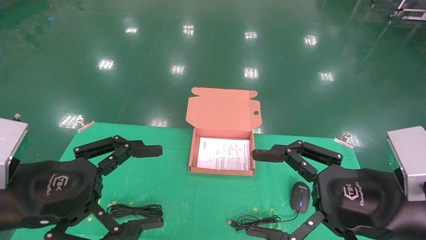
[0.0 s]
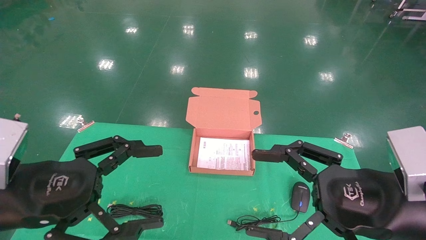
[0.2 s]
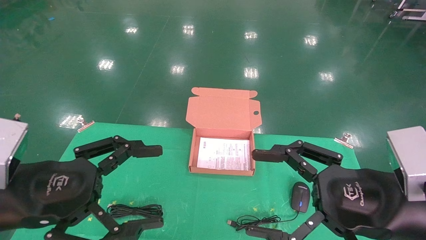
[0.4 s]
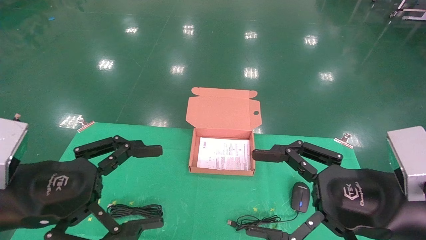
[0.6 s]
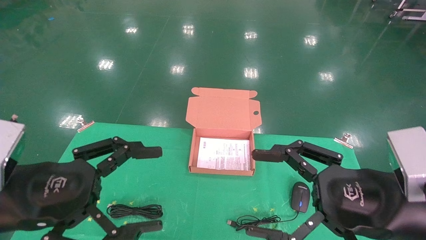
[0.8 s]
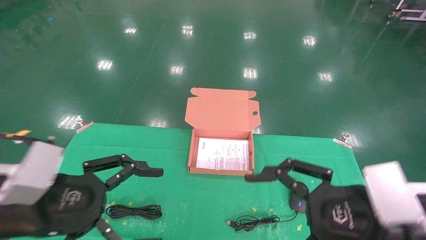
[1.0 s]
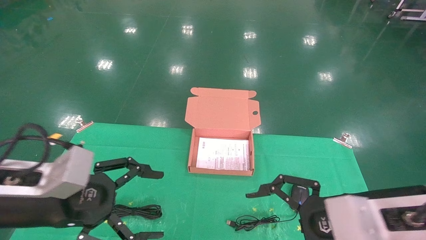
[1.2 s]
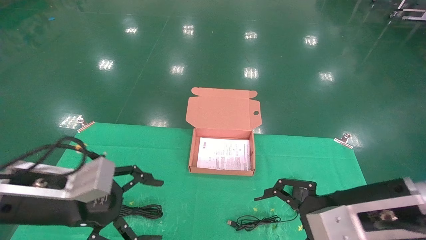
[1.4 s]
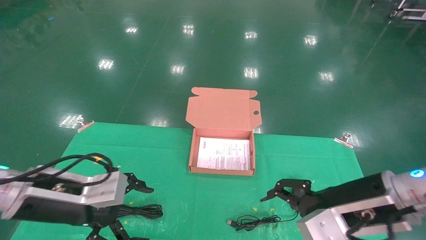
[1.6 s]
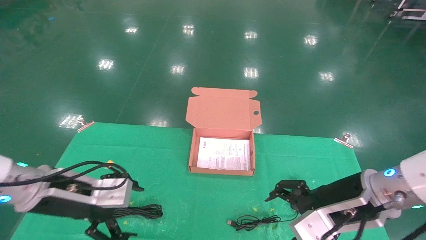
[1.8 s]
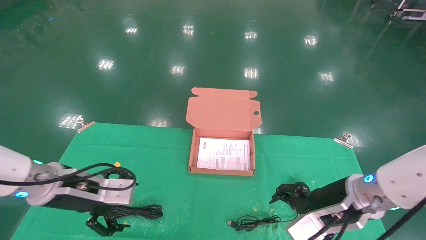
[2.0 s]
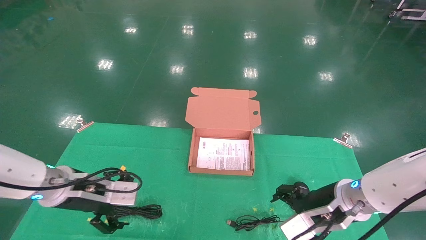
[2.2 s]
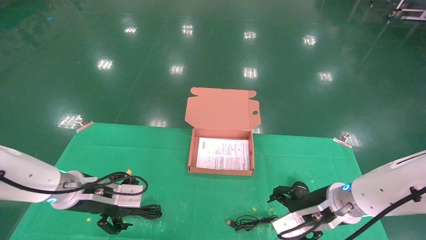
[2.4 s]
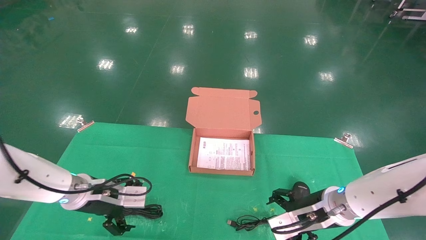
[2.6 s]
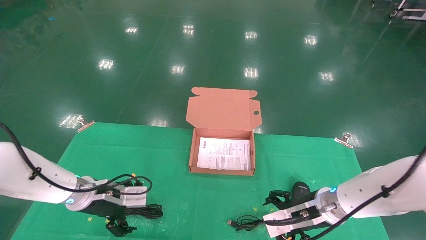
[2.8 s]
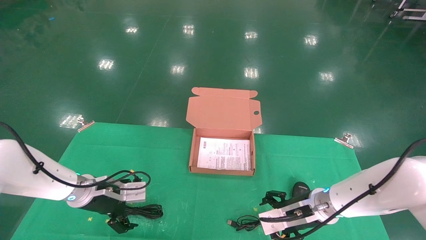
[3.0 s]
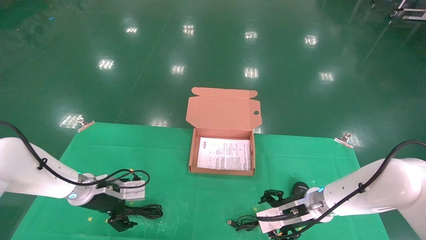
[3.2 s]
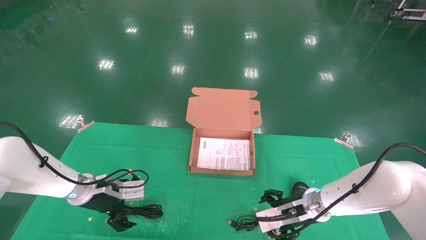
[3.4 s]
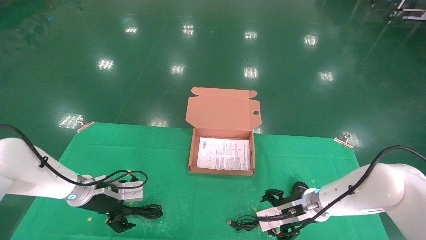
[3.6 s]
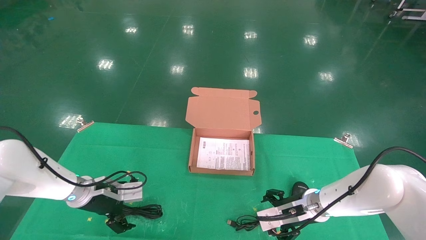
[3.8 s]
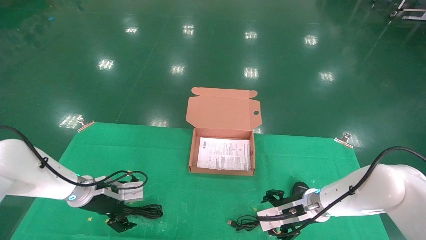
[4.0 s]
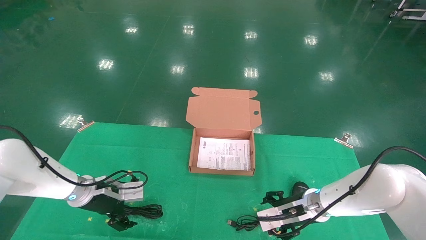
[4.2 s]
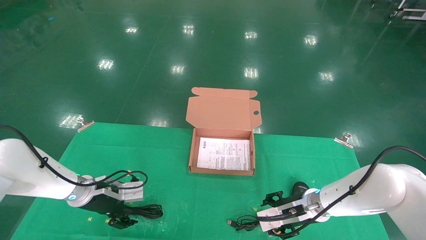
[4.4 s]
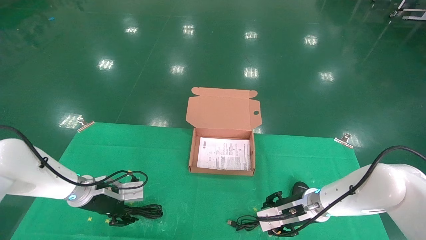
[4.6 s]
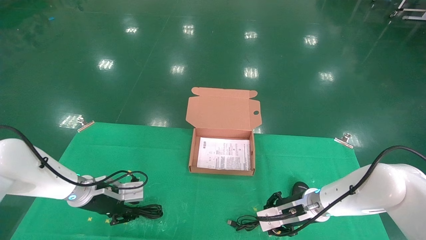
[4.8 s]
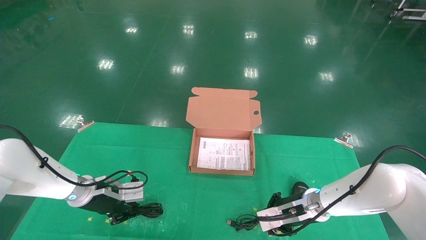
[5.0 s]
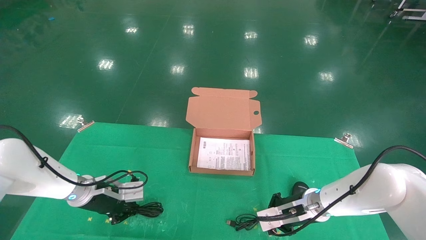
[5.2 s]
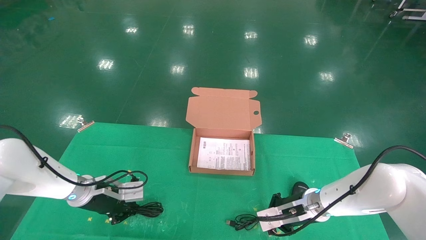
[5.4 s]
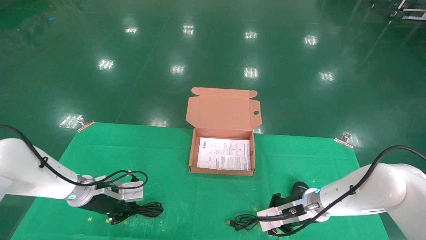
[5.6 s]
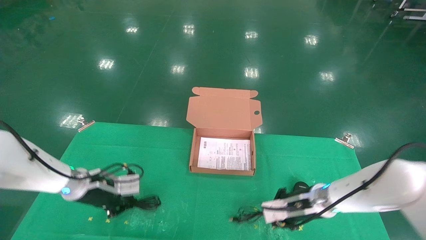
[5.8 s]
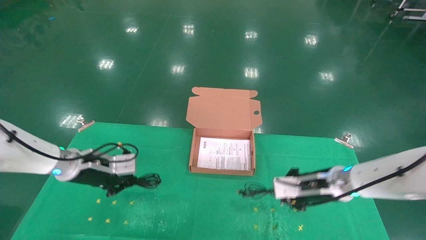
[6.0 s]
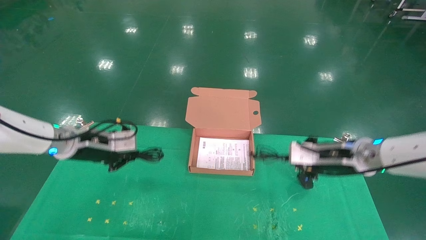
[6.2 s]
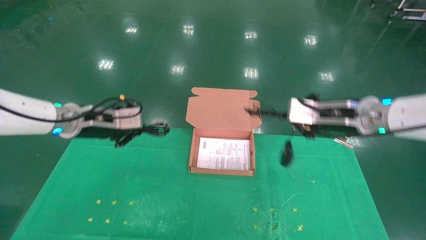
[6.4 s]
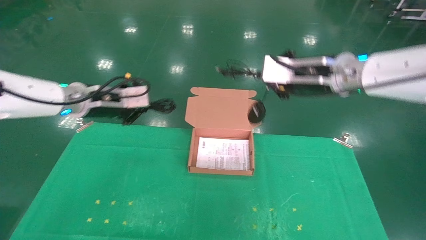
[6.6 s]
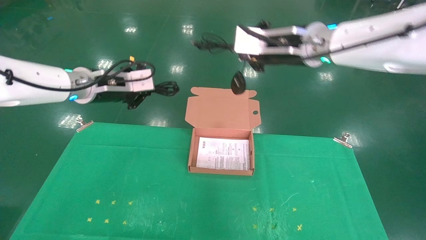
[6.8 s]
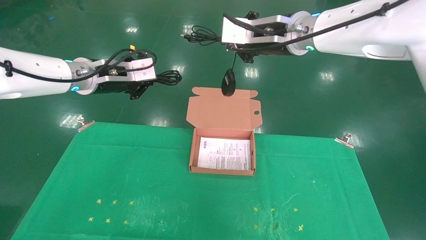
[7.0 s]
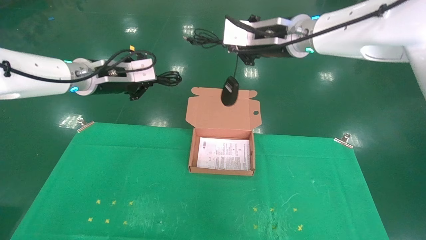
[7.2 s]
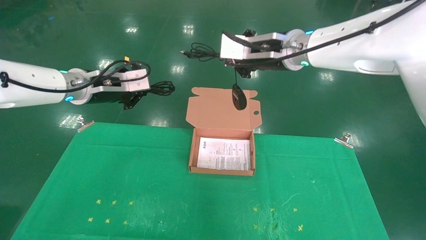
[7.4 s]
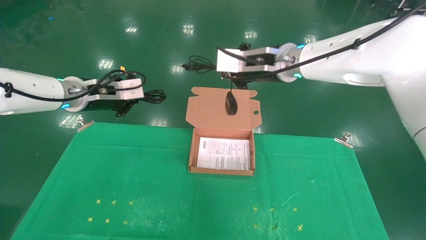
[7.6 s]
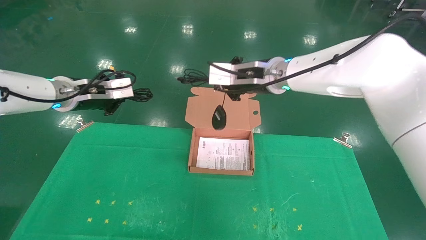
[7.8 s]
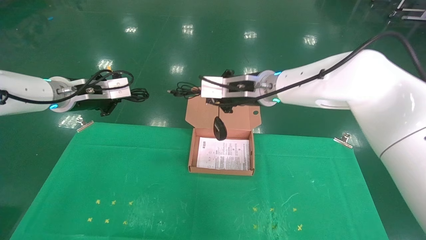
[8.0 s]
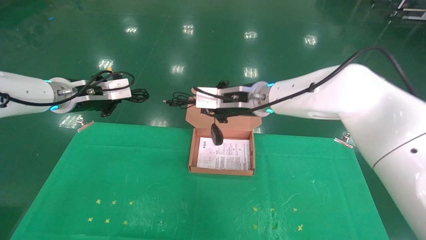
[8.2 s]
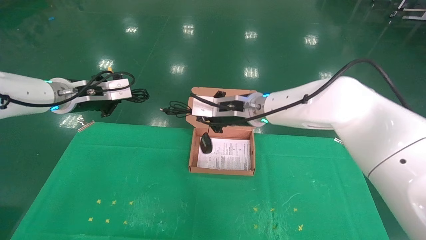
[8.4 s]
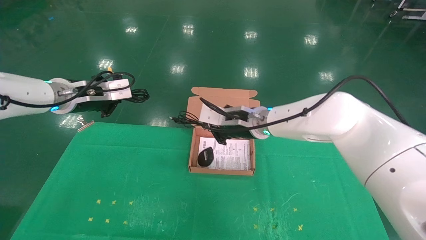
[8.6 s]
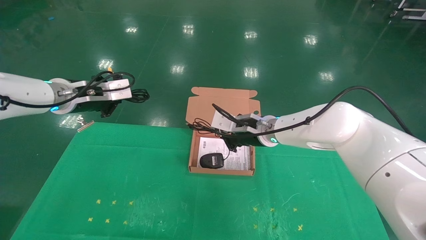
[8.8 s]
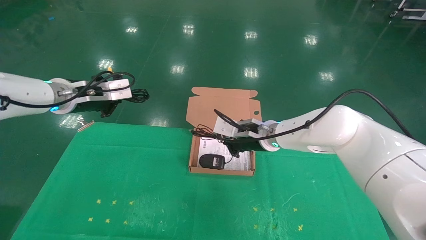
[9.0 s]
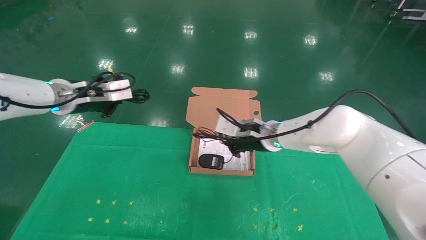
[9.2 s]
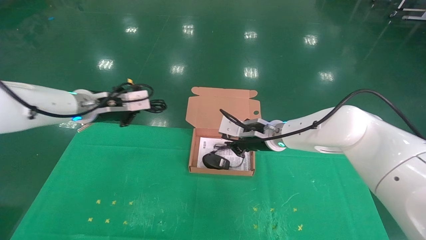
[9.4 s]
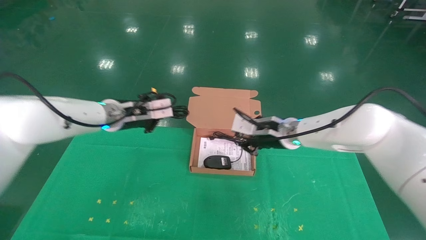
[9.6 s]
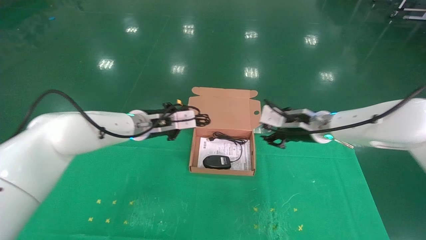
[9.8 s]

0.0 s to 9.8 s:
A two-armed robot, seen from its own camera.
Task of the whole recording: grasp data cable left put into box grasp mouse right put into box.
Step, 1.0 to 5.4 s: Grab and pick up both the mouse and power cord from the accessory packaging area at the same time.
0.0 to 1.4 s: The right gripper changes place by some 5 cm. Meanwhile the left gripper goes approximately 5 cm forward.
1.4 to 2.8 s: Both grippers move forward and downward, about 15 cm.
2.8 to 4.2 s: The right gripper ends up roughly 5 cm from where it was.
4.2 to 5.6 s: The left gripper closes; the right gripper closes.
5.6 to 7.0 s: The two grippers go about 30 cm upward.
7.0 to 8.4 s: The left gripper is displaced to the left by about 5 cm. Meanwhile the right gripper shifts some 15 cm downward and to the left.
8.4 to 9.8 s: The right gripper goes some 15 cm to the right; the left gripper shifts about 15 cm to the right and downward.

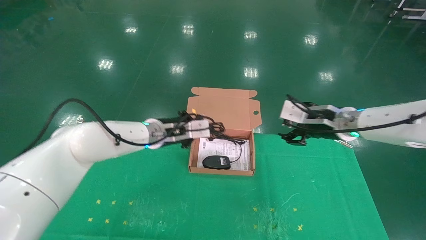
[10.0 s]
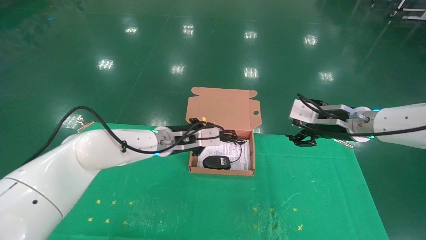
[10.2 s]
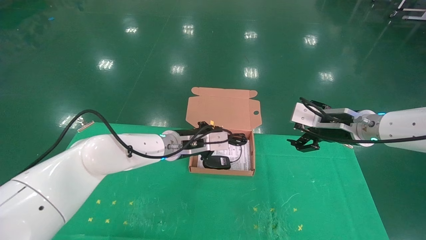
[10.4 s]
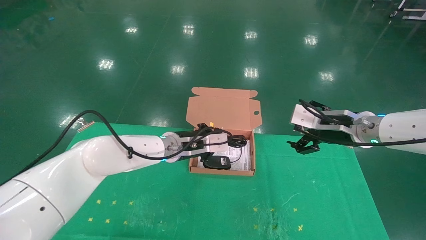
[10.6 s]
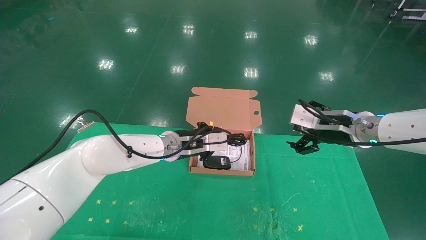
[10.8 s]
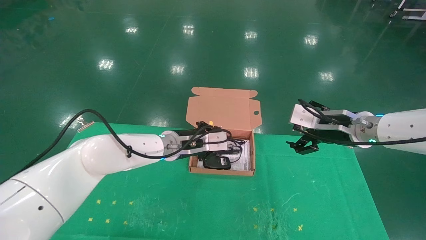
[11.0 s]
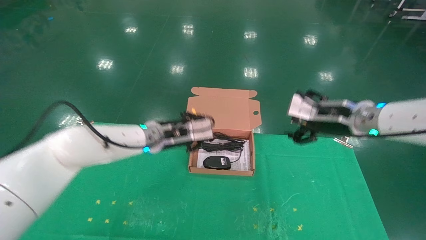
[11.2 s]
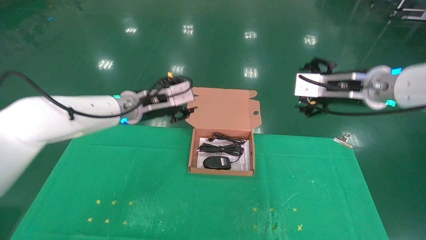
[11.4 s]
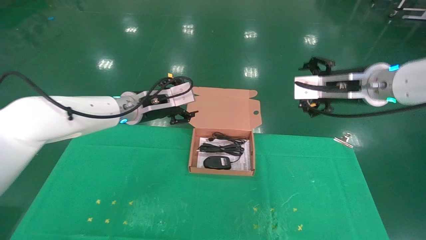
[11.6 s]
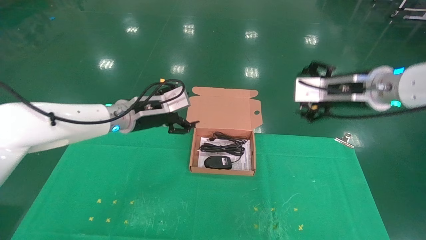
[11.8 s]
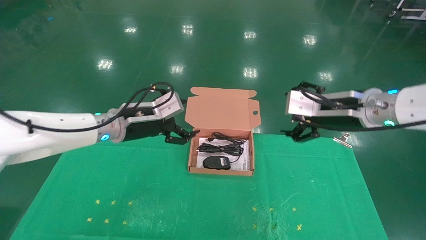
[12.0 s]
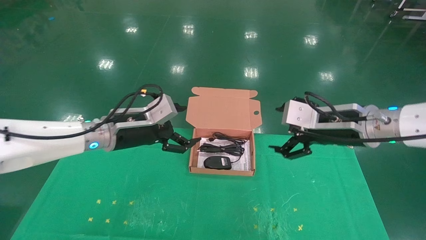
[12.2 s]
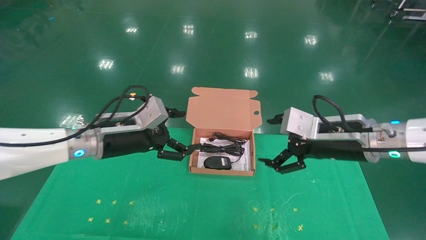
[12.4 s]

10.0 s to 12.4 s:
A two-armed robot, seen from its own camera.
Task of the whole recording: grasp data cable left put into box grasp mouse right put into box.
10.0 to 11.2 s: The right gripper changes place by roughly 5 cm, and opens up.
11.2 to 12.4 s: The right gripper goes about 5 cm backward, while the left gripper travels backward and to the left by roughly 10 cm, and opens up.
